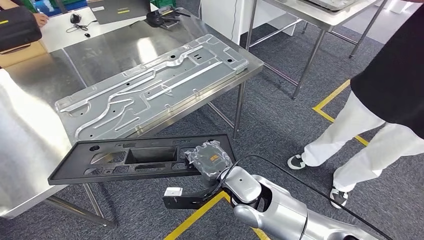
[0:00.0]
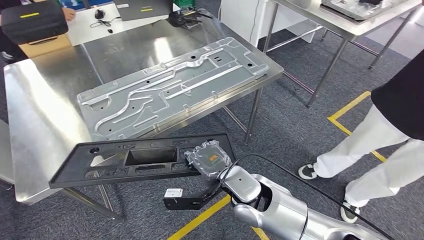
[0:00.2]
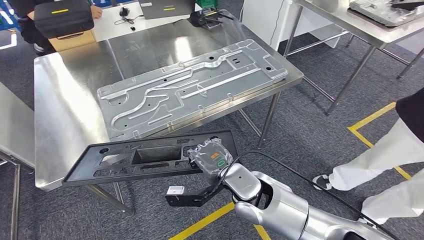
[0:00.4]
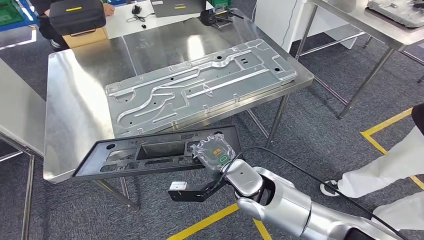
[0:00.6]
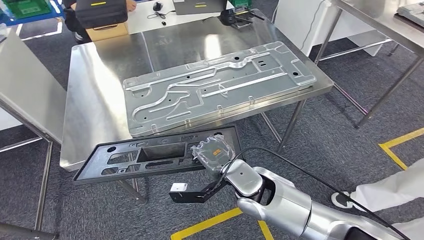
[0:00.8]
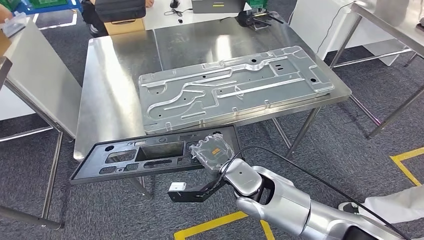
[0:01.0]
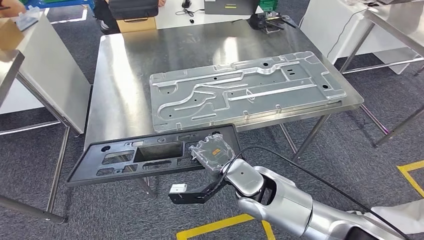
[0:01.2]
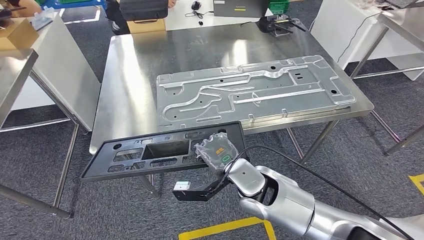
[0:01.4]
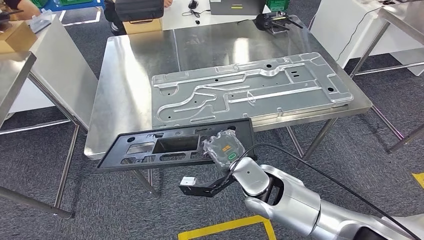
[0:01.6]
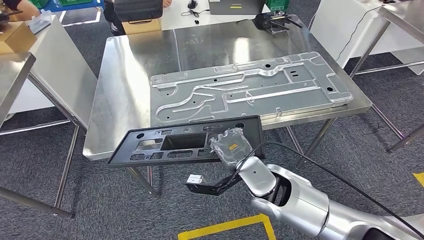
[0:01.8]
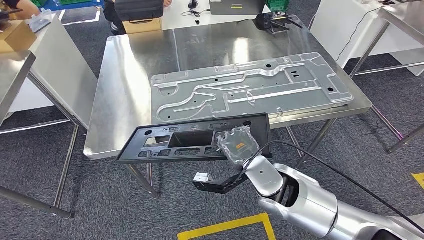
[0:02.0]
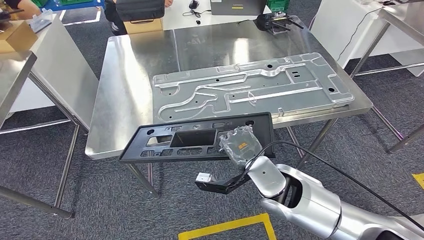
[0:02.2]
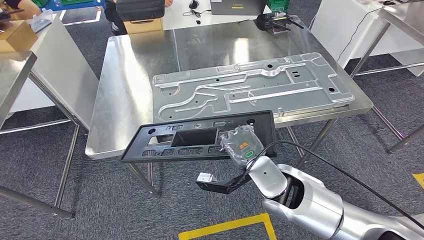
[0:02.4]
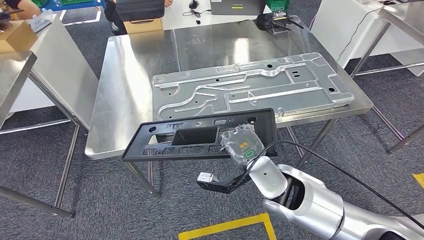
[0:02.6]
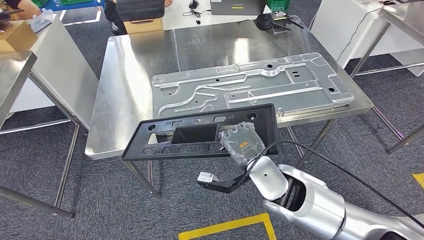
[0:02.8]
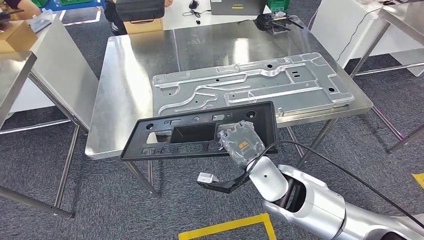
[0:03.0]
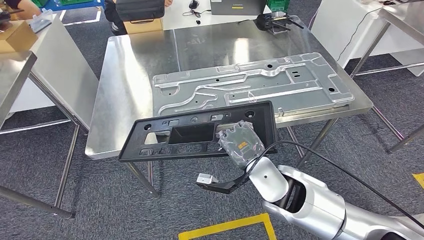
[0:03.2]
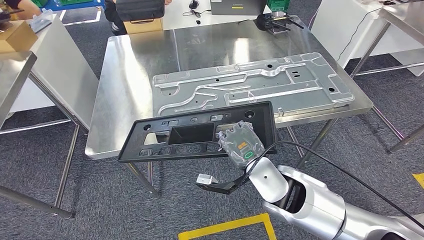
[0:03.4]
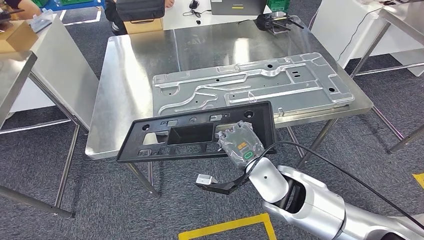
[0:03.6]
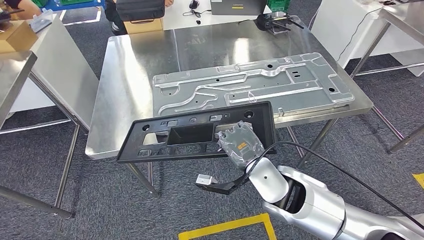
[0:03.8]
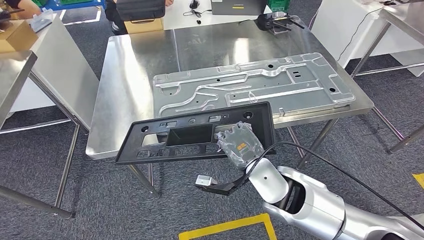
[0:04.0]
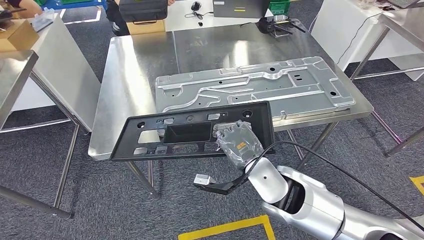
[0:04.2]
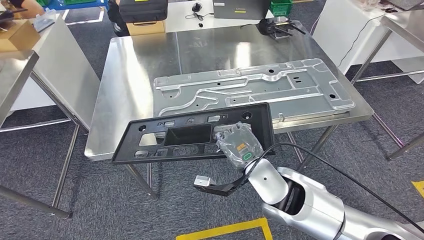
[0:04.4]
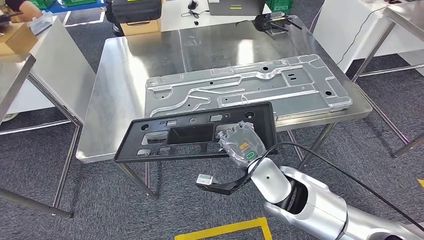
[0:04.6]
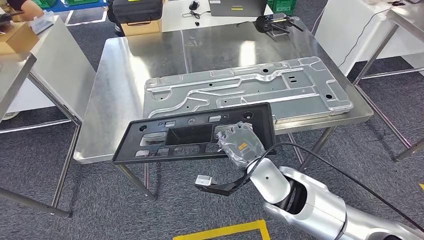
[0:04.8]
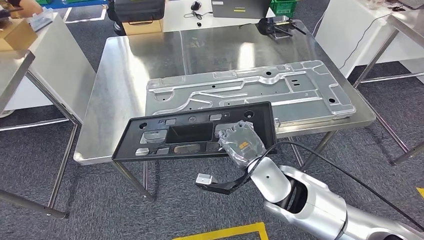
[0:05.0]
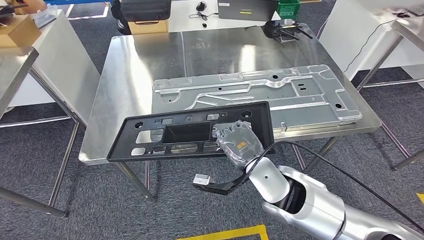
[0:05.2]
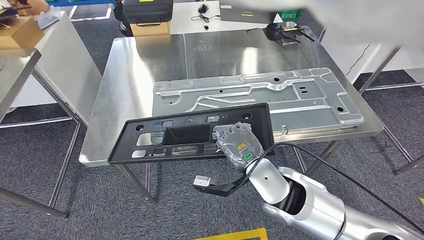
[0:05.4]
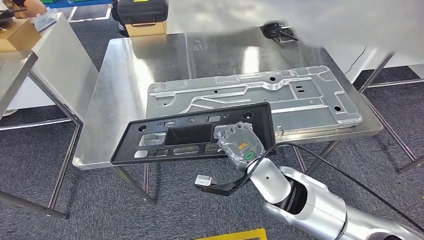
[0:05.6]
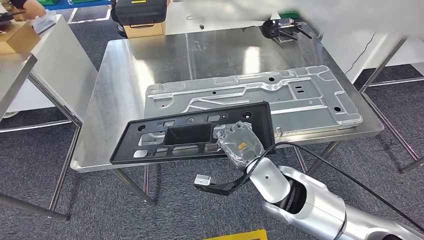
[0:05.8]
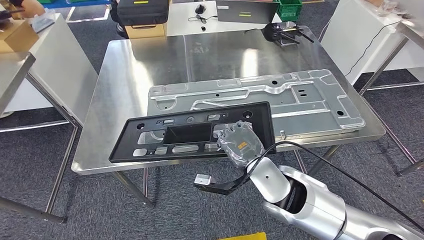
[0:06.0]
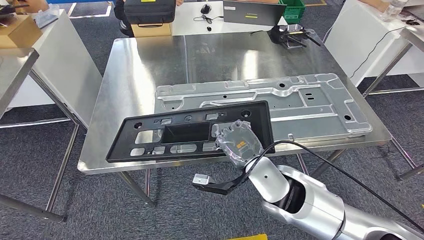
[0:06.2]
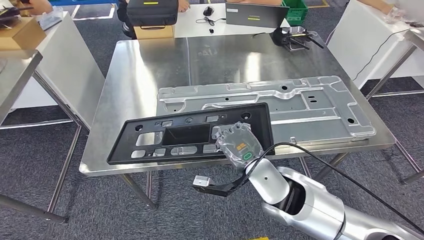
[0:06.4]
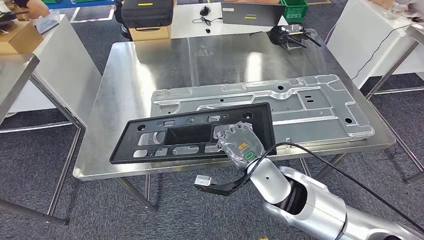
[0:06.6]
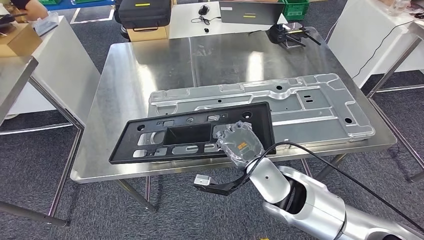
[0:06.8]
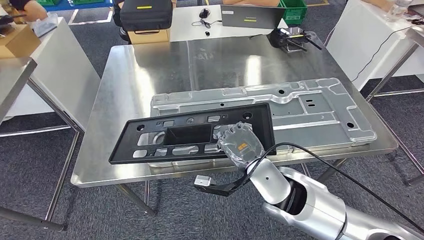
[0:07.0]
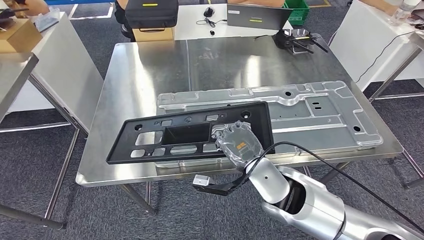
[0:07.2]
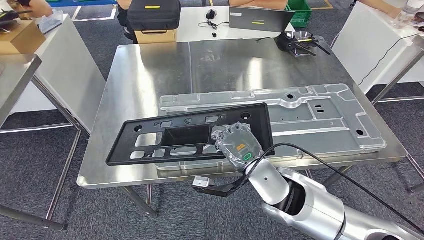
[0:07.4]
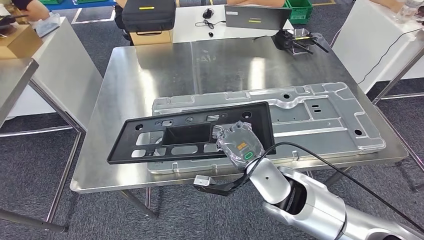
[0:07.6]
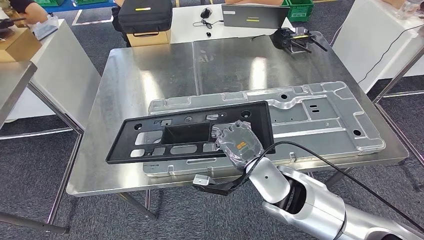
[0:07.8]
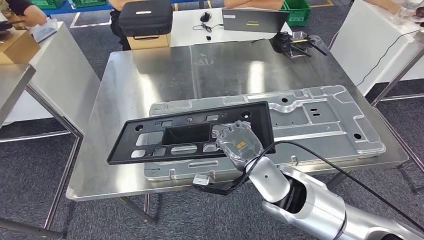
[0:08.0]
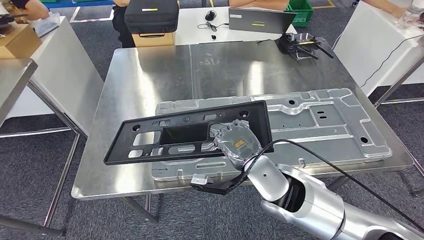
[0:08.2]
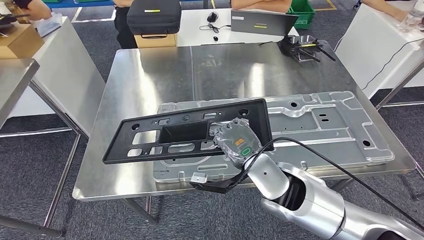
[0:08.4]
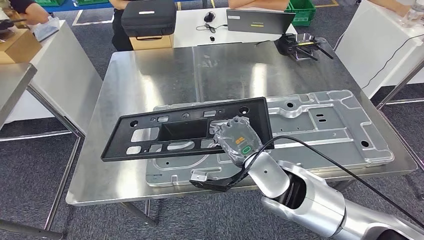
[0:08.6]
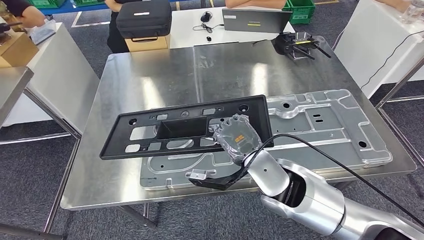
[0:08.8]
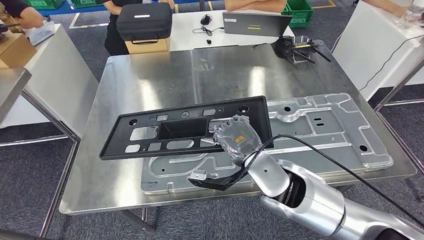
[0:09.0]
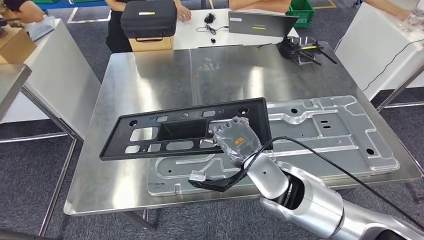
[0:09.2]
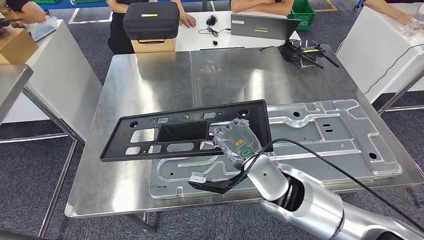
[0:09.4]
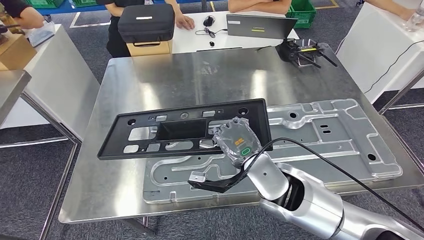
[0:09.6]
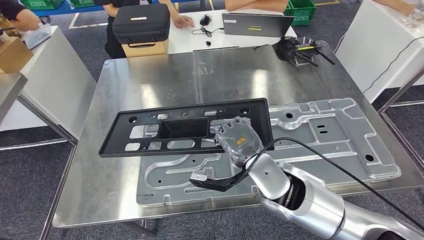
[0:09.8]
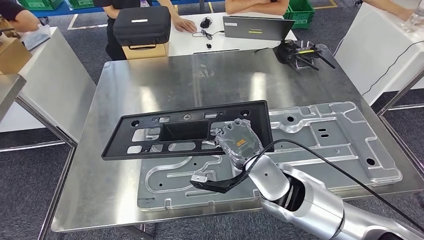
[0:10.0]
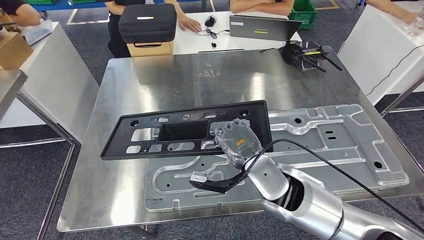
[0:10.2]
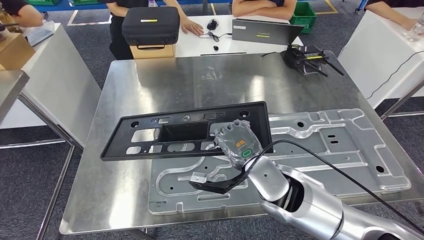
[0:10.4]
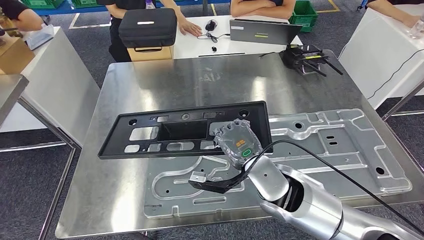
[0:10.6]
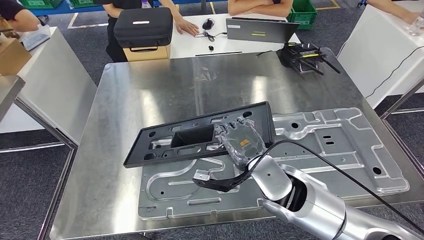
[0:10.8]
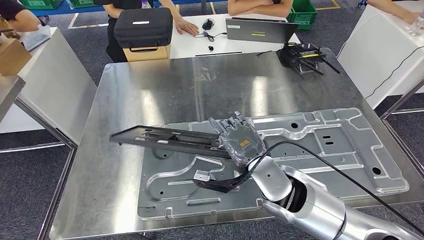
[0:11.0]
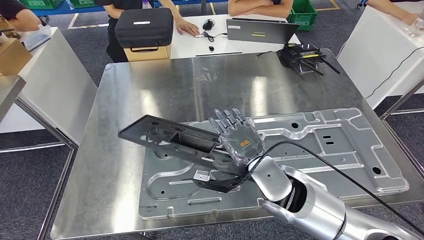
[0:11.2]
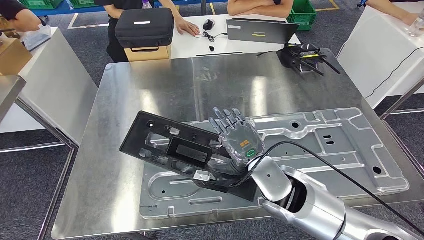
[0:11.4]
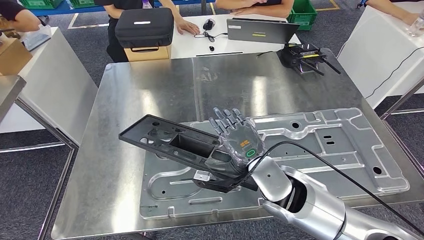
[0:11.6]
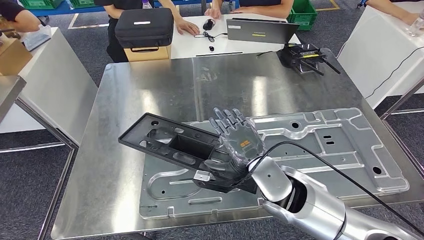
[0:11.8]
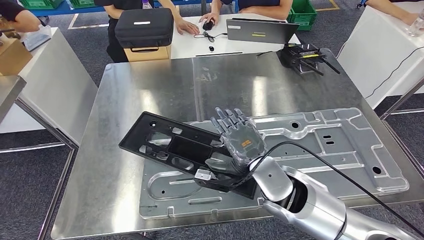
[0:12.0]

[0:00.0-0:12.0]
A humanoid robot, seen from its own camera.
Step, 0:00.0 to 0:02.0: Move the large material to the workbench.
0:01.6 to 0:03.0: The hands stay close to where they were, moving slightly.
